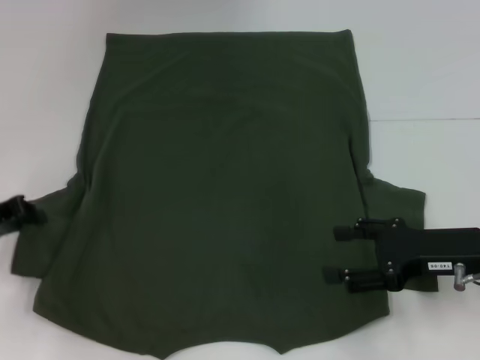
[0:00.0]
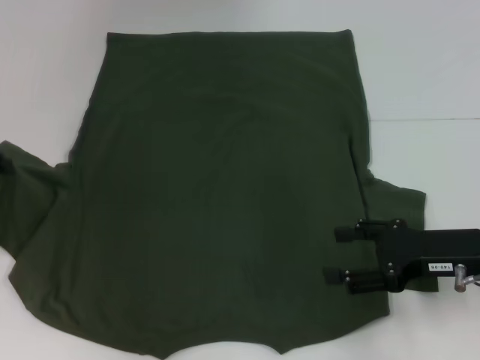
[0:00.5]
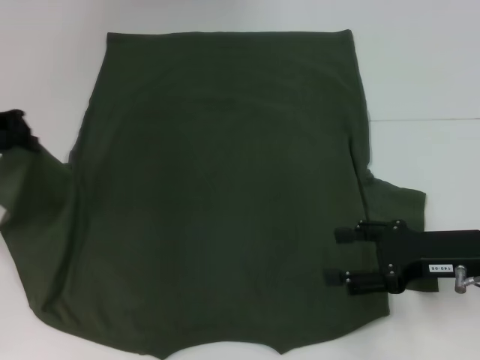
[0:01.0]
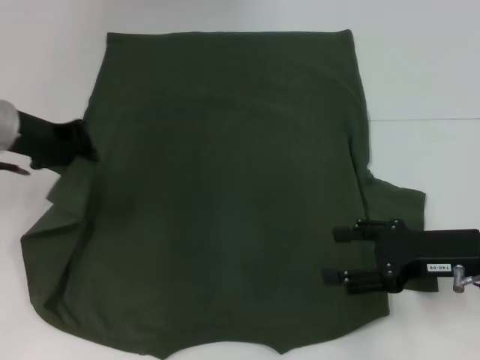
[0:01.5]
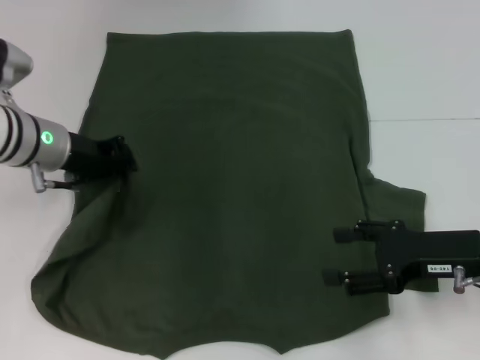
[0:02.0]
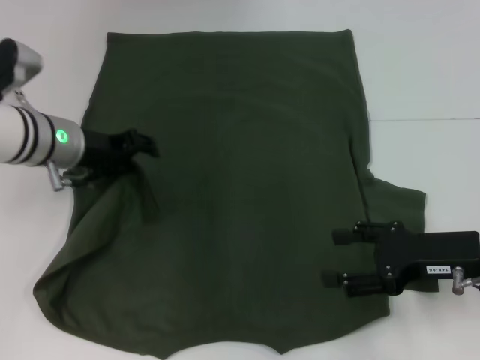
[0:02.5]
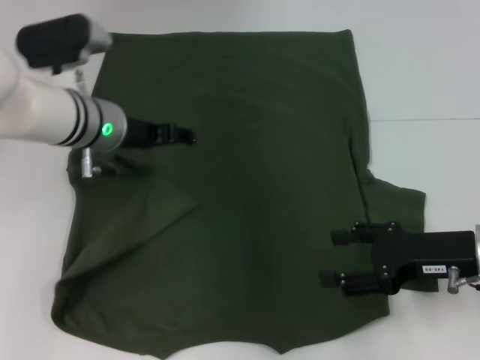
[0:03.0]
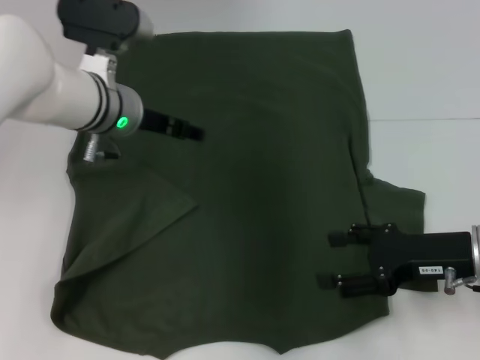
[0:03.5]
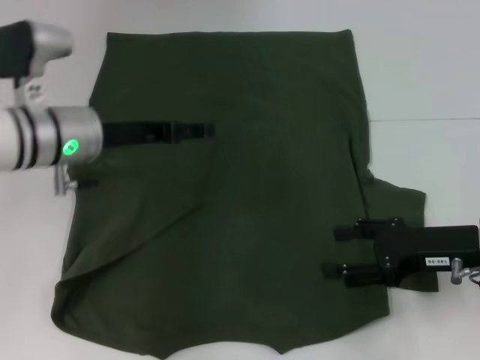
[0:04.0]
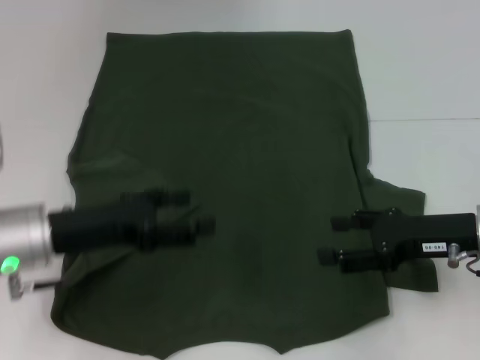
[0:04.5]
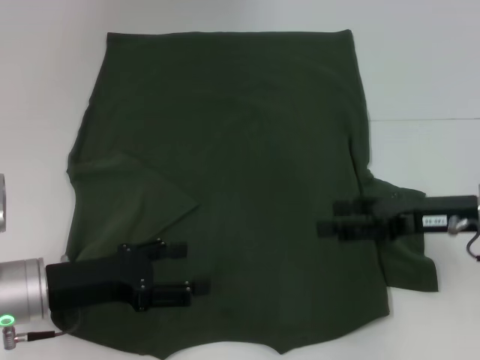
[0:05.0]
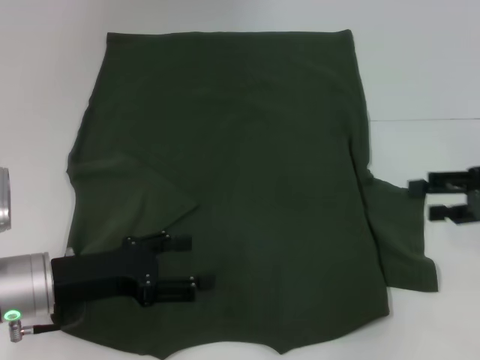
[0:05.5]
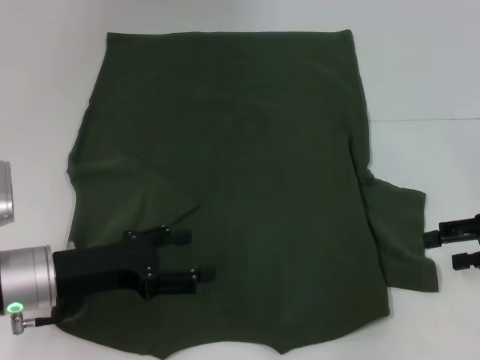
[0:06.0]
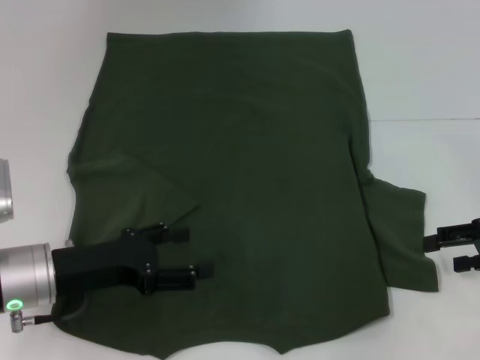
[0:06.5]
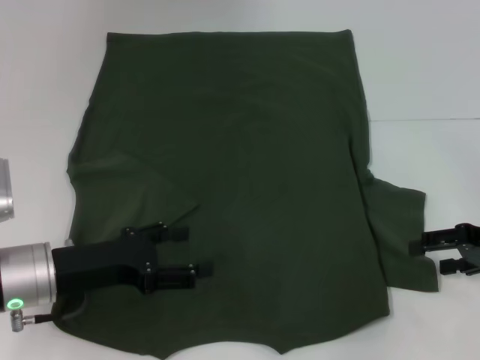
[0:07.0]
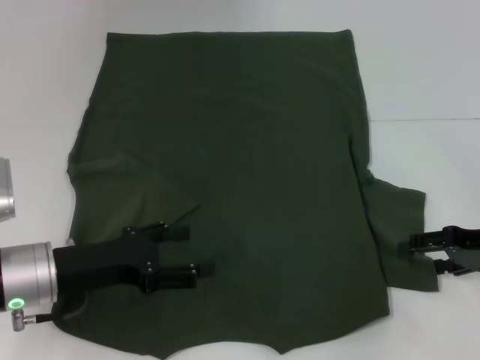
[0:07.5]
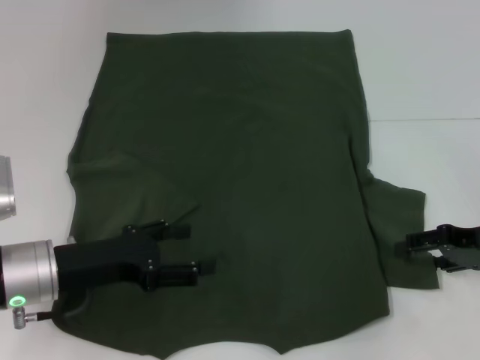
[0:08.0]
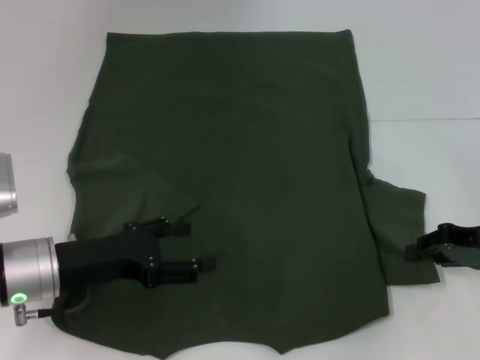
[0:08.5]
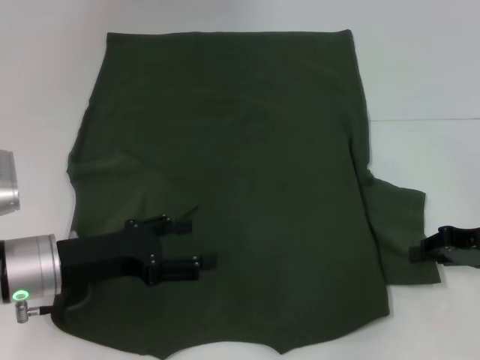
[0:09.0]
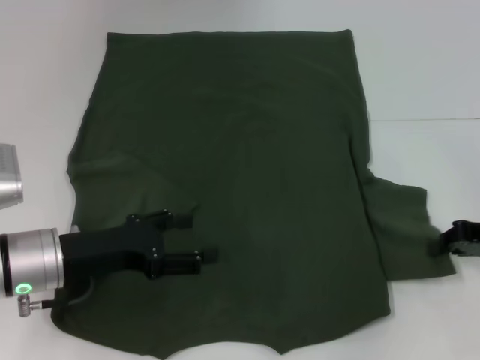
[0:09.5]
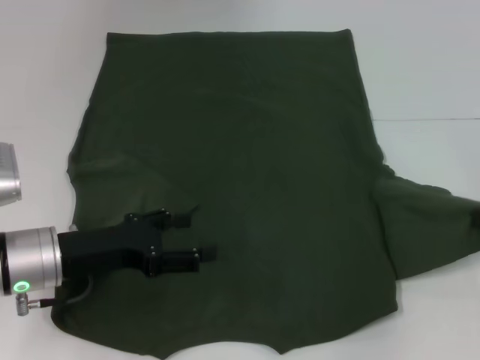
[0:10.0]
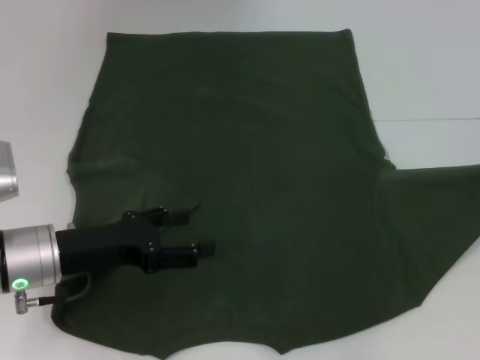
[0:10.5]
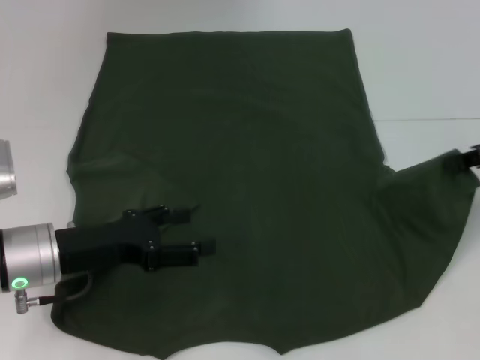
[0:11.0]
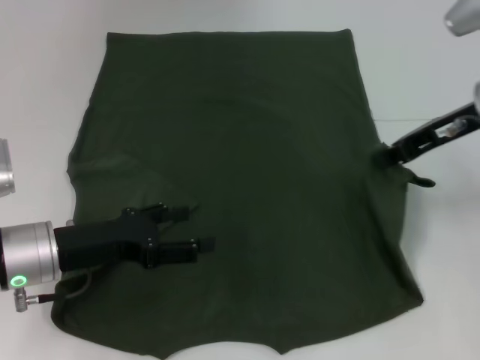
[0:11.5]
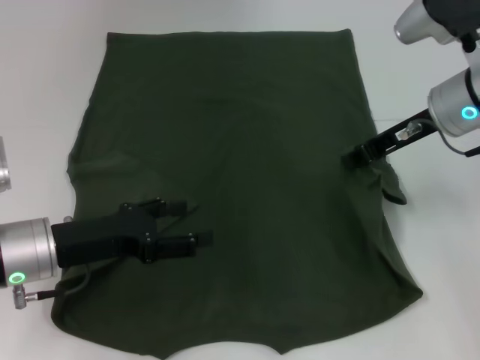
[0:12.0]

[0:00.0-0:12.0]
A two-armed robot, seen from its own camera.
Step, 0.0 to 3.0 s: Fold the bottom left sleeve with your left hand.
0.0 to 2.0 s: The left gripper heads to the right and forward, covering about 15 cm.
2.0 to 4.0 s: The left gripper opens its fingers.
4.0 to 6.0 s: The right gripper goes approximately 10 cm to the right. The left gripper moves backward and downward, roughly 15 cm.
6.0 to 8.0 s: The grippers make only small movements.
8.0 to 10.0 s: The right gripper is displaced to the right by roughly 5 cm, and closes.
10.0 to 12.0 s: The right gripper goes roughly 20 cm to the left and forward.

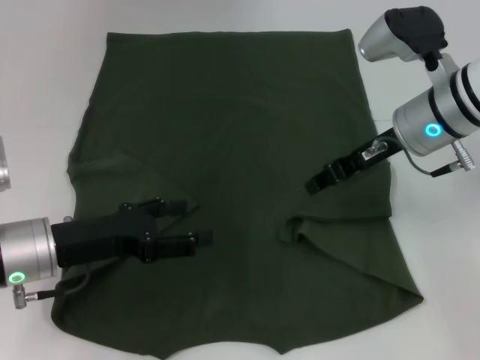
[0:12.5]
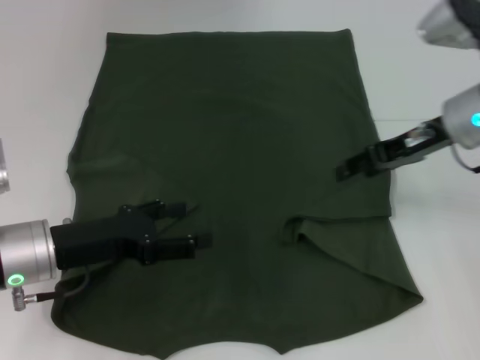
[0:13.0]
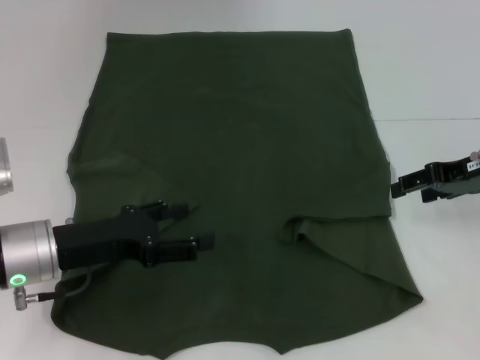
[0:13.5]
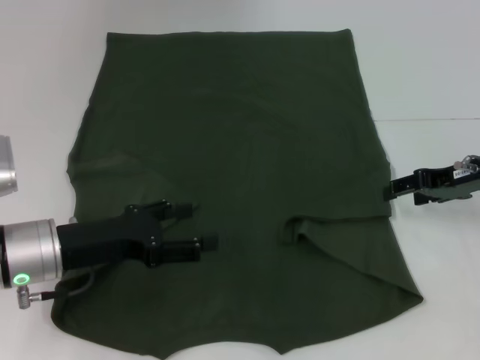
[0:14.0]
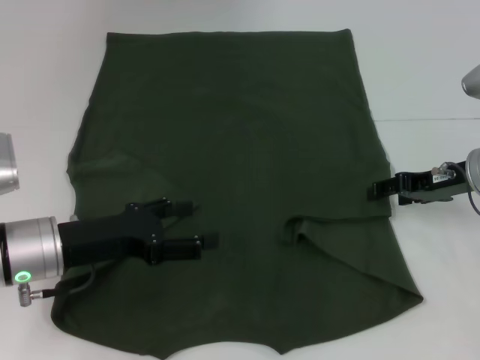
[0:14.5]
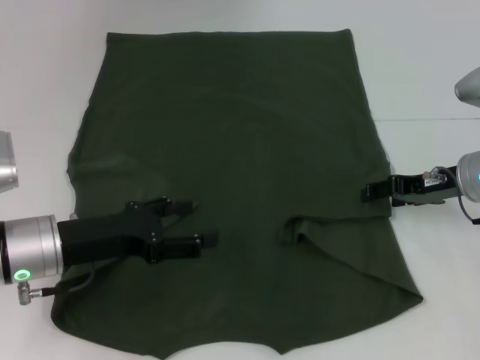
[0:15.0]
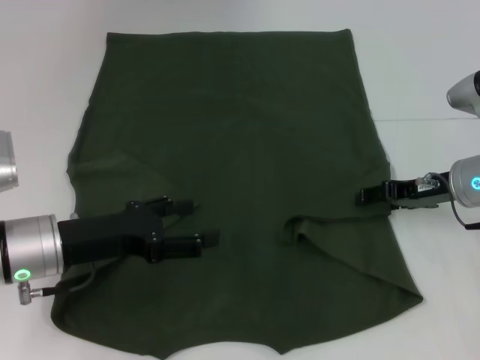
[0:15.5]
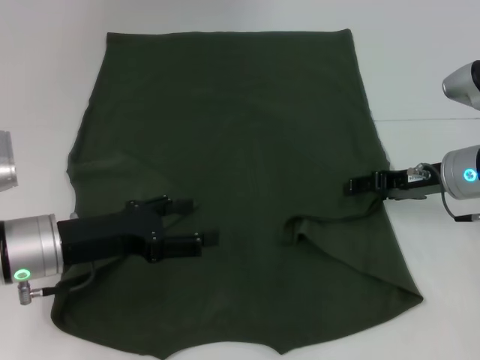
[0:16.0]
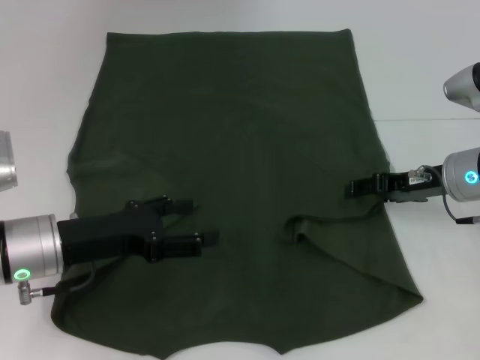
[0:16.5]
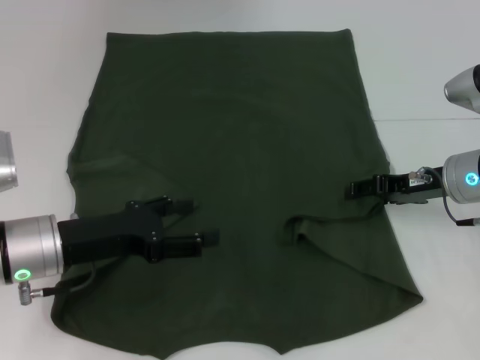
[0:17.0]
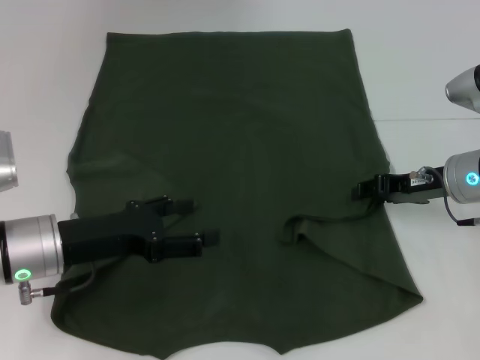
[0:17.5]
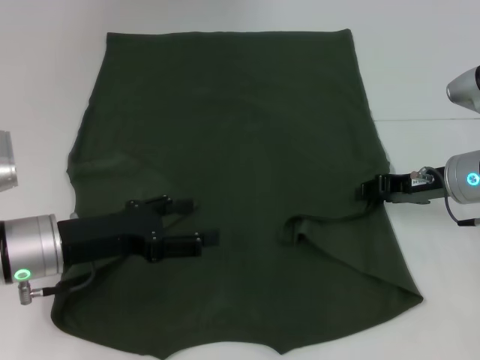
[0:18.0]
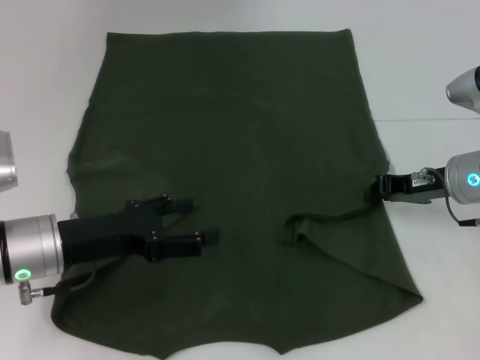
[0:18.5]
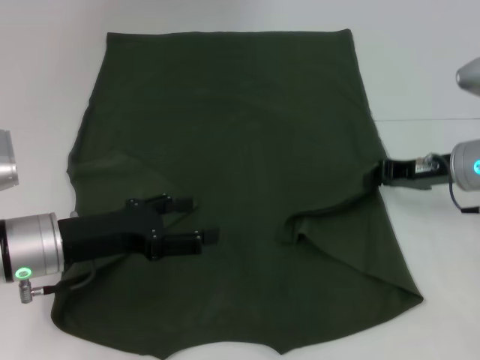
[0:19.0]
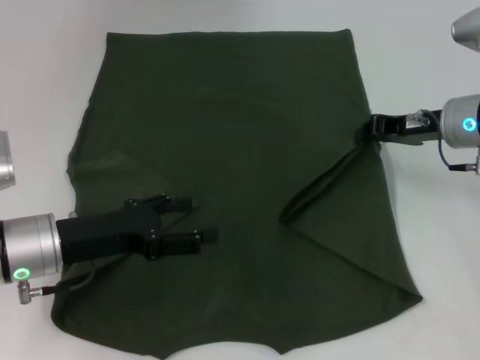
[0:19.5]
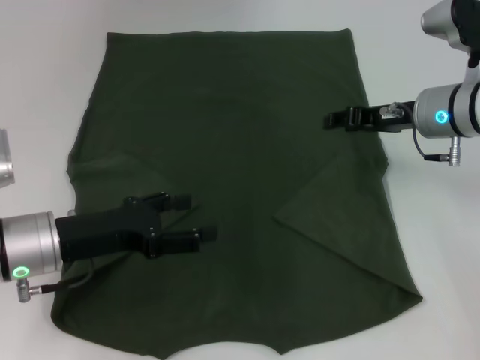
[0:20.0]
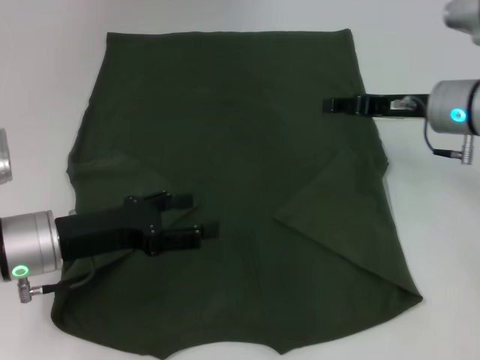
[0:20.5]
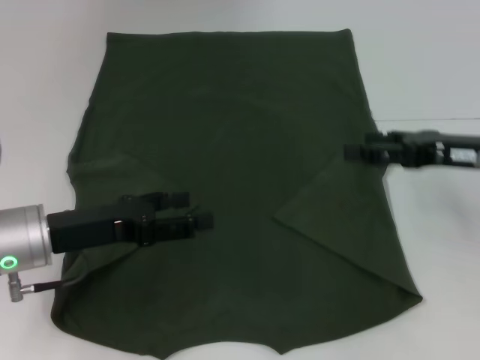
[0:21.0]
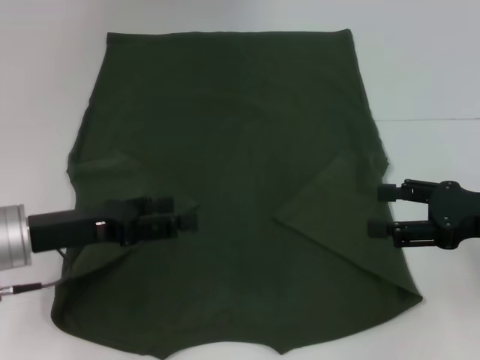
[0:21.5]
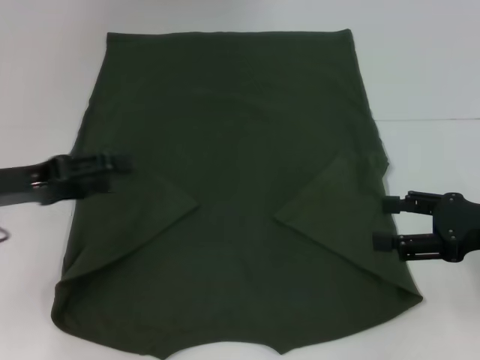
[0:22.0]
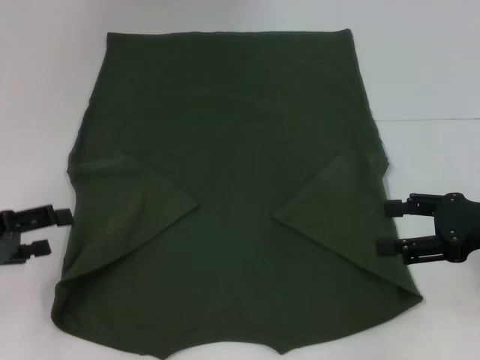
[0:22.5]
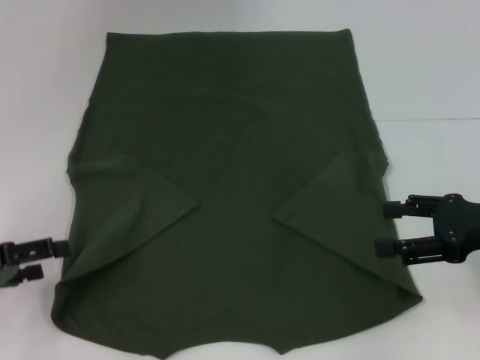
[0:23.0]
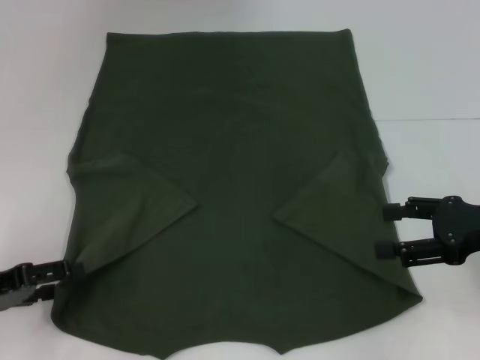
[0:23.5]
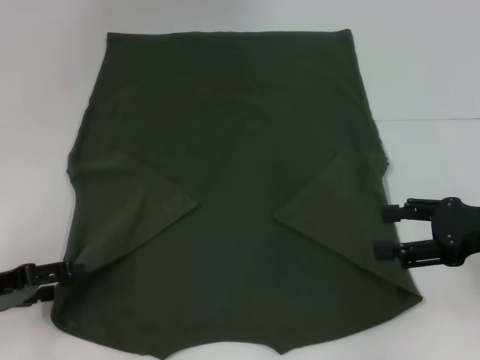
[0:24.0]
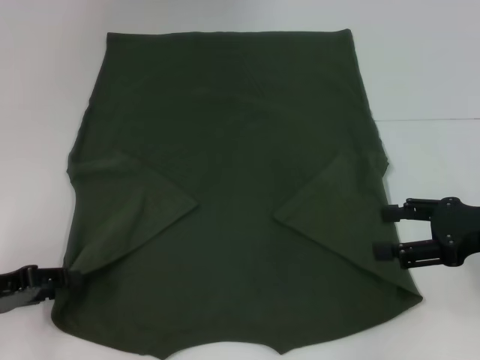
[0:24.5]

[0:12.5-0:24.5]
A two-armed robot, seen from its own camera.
Step, 12.5 to 20.5 s: Fold the bottom right sleeve with your right hand.
12.5 to 14.5 s: The right gripper goes approximately 10 cm to the right and downward, and opens its fingers.
14.5 to 16.5 s: The grippers move only a little.
16.5 to 18.5 s: The right gripper closes its fingers.
18.5 to 20.5 s: The right gripper is displaced upward by some 5 cm, and opens.
20.5 to 22.5 s: The right gripper is displaced backward and to the right by some 15 cm, and opens up. The left gripper is displaced to the left by some 10 cm.
22.5 to 24.5 s: The grippers stay close to where they were, moving slightly.

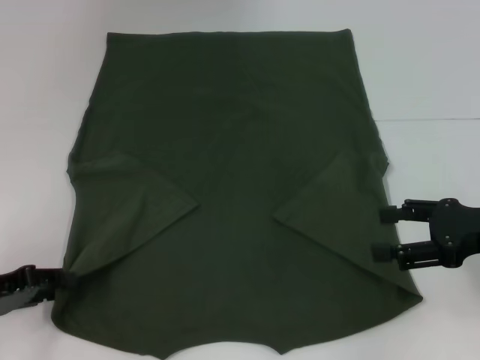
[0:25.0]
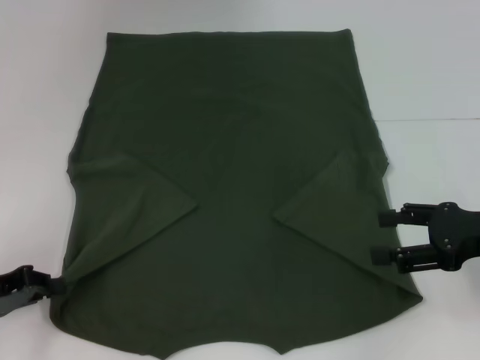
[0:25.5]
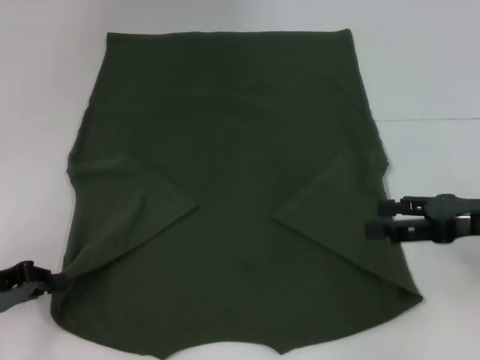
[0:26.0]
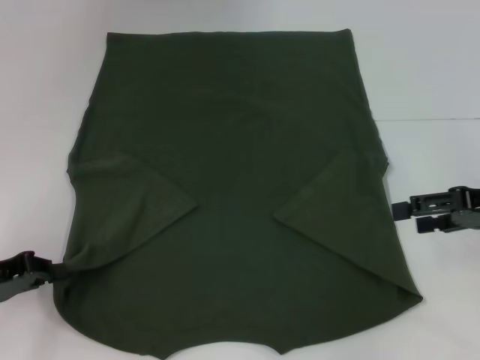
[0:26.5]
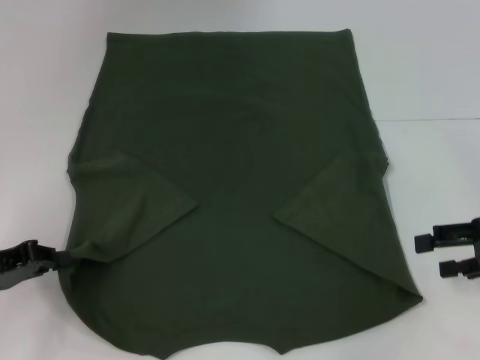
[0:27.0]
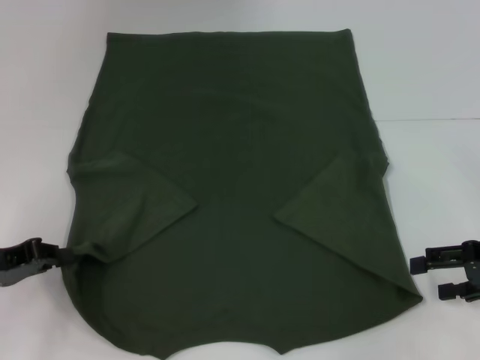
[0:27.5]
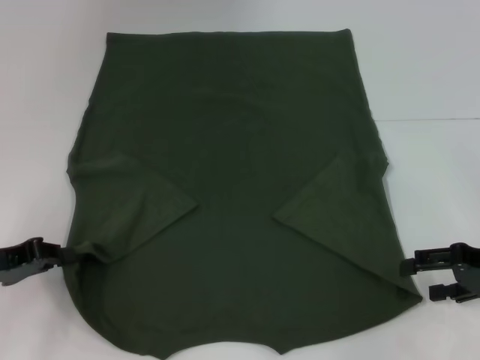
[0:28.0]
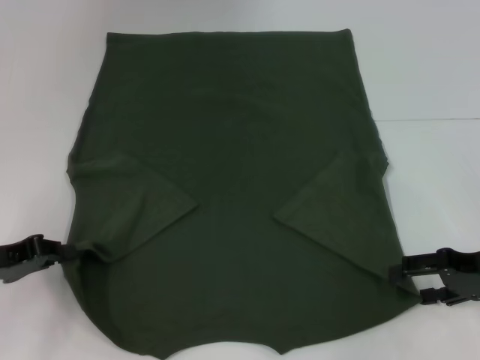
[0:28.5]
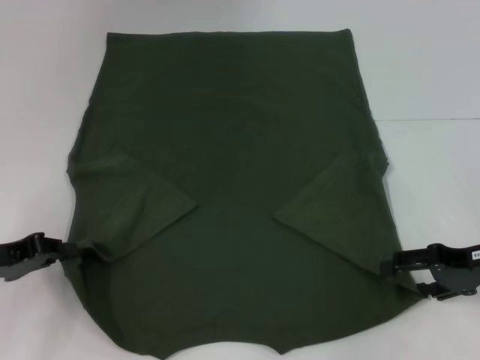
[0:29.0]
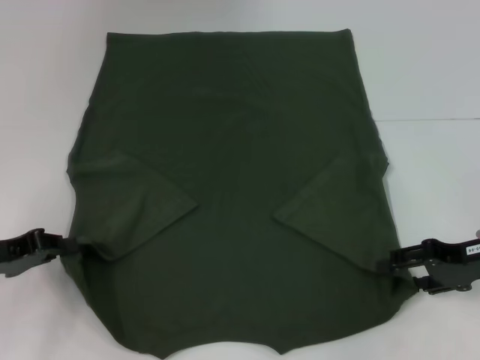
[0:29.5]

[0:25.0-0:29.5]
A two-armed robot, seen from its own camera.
25.0 to 27.0 s: The left gripper closes its fingers.
27.0 to 29.5 s: The right gripper changes place by roughly 5 cm.
